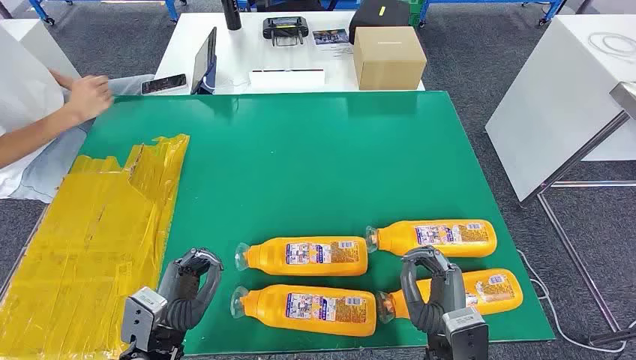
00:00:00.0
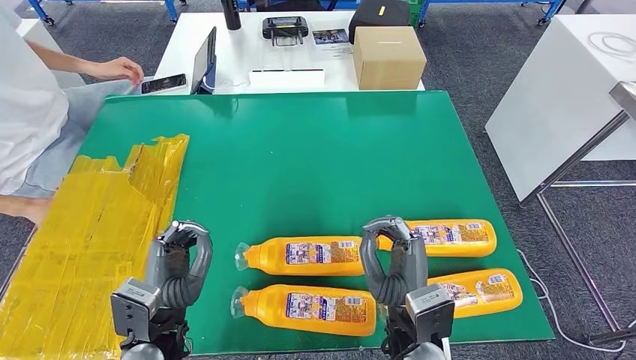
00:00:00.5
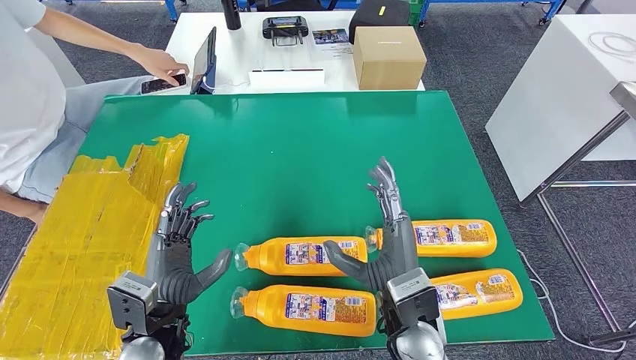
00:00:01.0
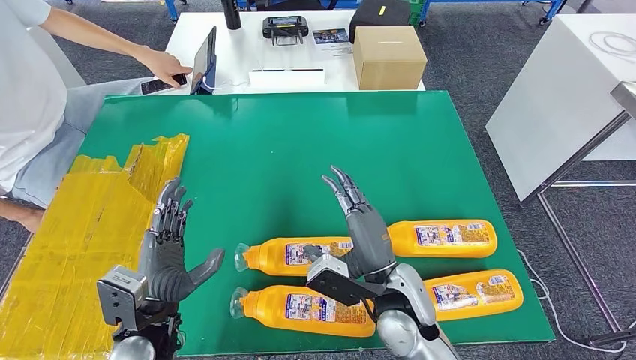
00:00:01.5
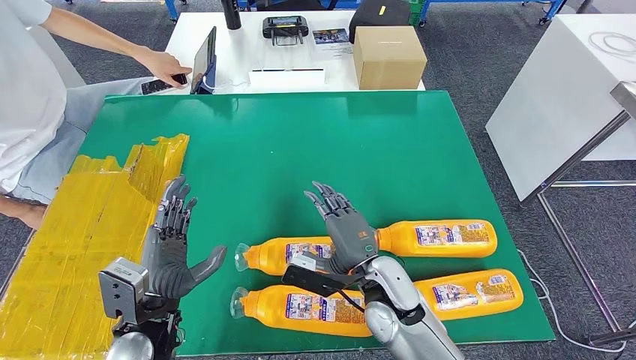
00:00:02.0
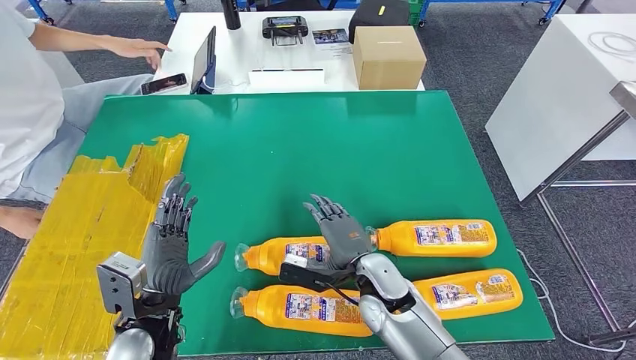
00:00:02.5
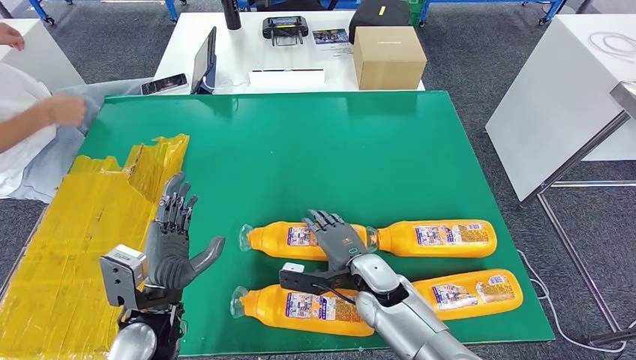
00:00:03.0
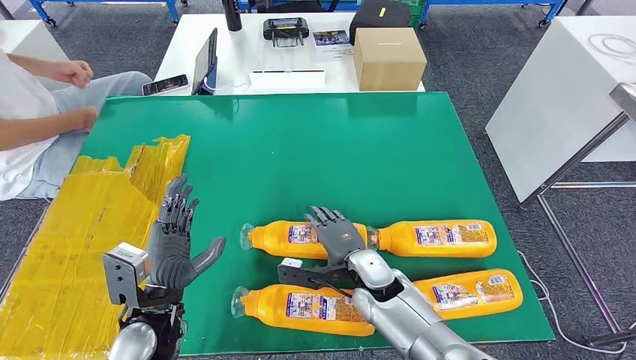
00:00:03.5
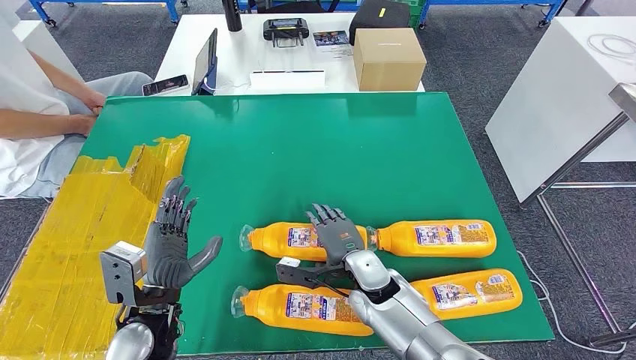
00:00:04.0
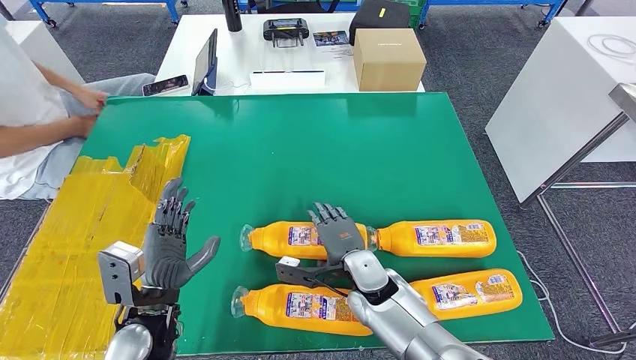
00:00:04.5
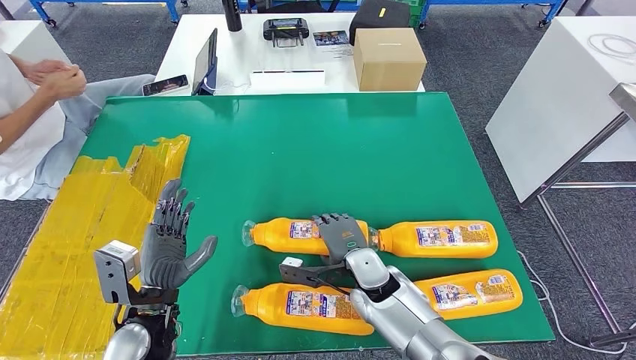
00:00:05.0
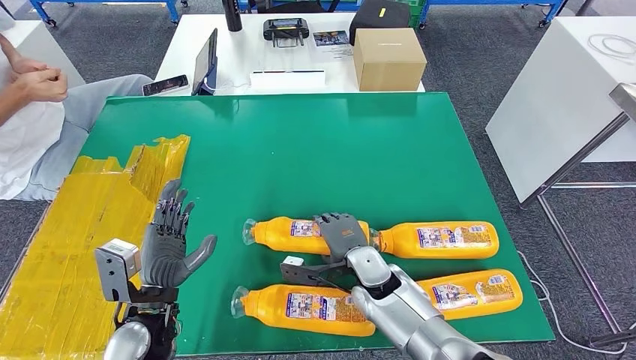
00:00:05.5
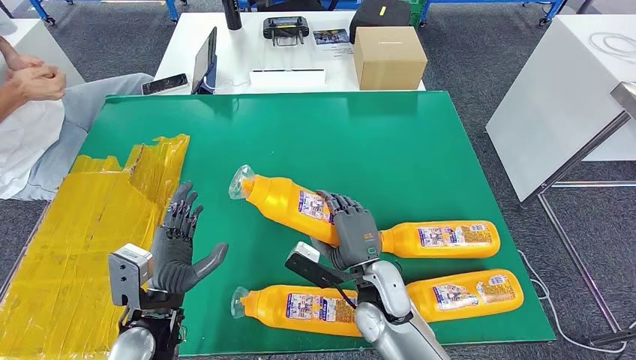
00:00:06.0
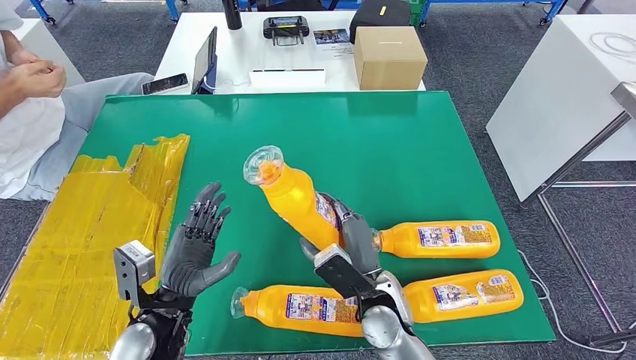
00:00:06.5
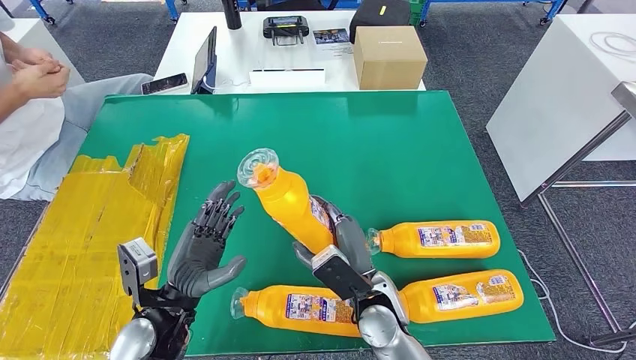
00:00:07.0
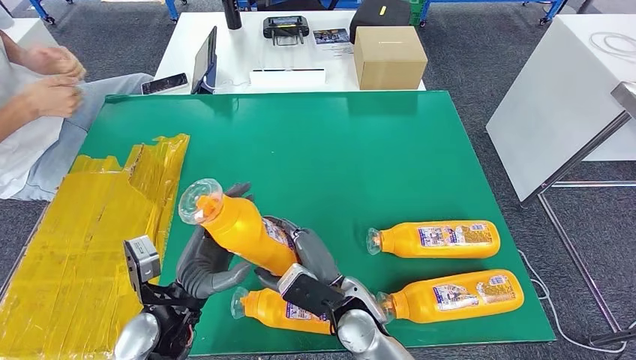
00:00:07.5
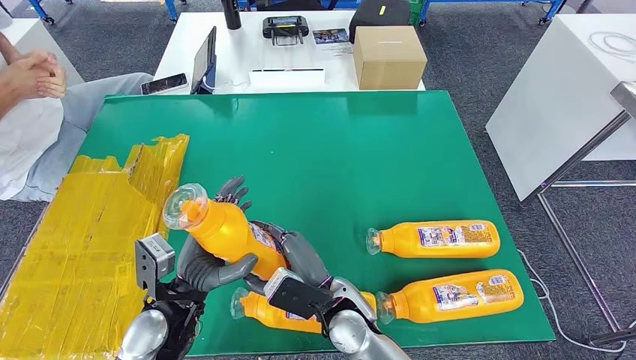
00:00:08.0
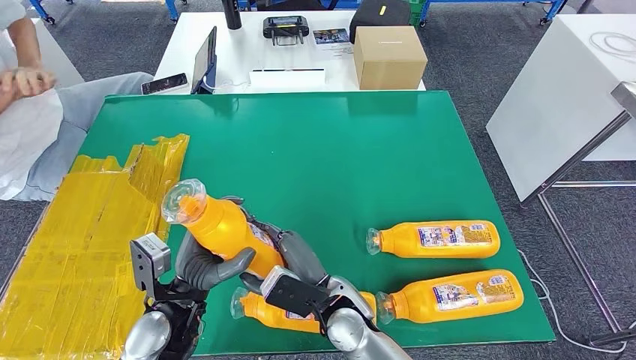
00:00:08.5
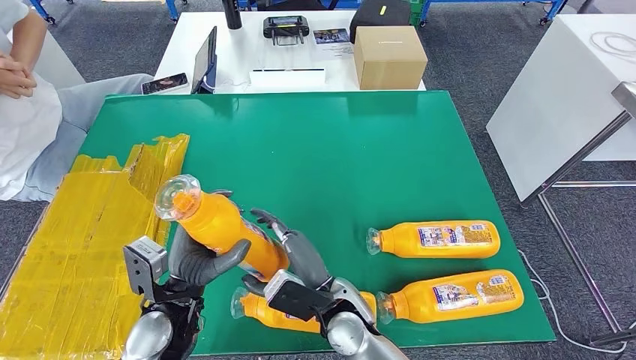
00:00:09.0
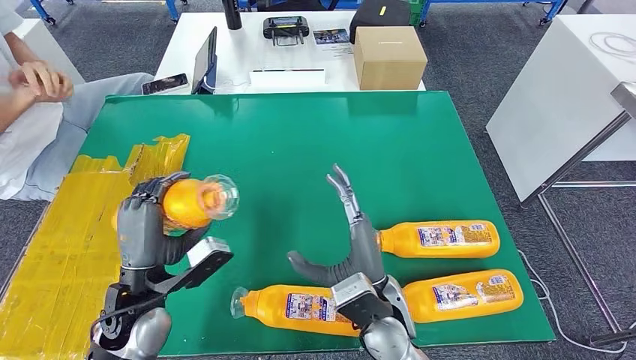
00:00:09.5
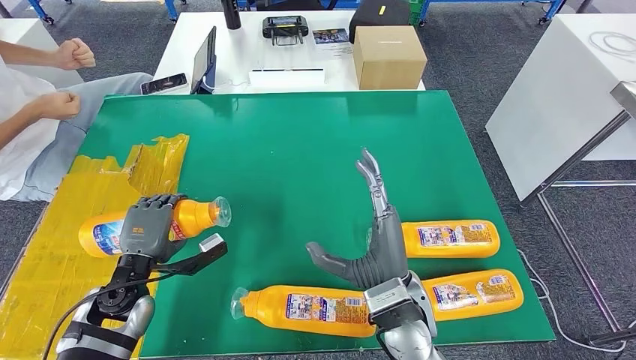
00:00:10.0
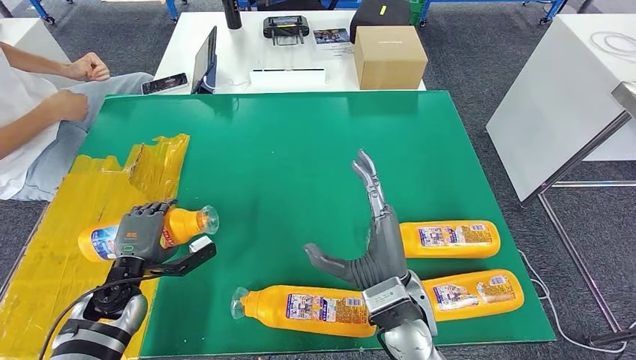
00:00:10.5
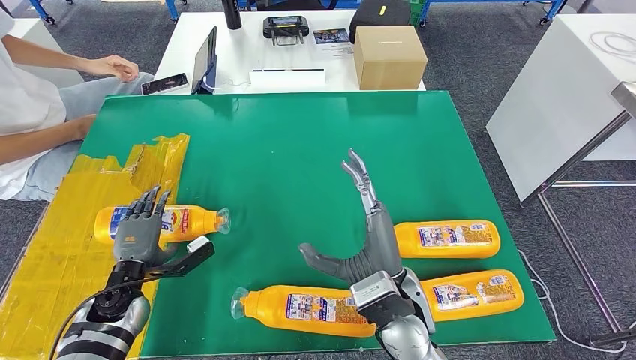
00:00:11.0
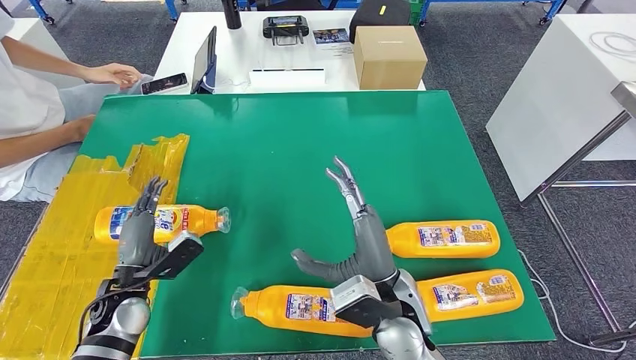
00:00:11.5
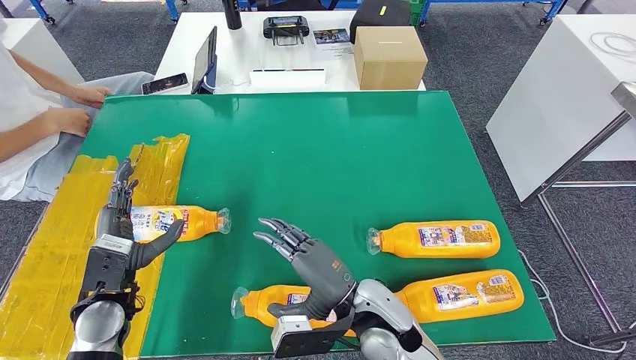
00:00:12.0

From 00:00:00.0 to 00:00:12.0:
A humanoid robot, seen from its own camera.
Step, from 00:00:00.0 to 00:00:07.5: Take the fast-moving consumer goods bottle from the table.
Step, from 00:00:08.5 to 00:00:11.0: Flip the fast-moving consumer goods bottle to the front side.
From 00:00:02.0 to 00:00:04.0: The right hand heads downward, covering approximately 5 cm.
From 00:00:04.0 to 00:00:06.0: The right hand changes place by approximately 5 cm.
From 00:00:06.0 to 00:00:08.0: The right hand moves to the left, approximately 5 cm.
From 00:00:08.0 to 00:00:10.0: The right hand is displaced to the right and upward by roughly 10 cm. Meanwhile the left hand goes roughly 10 cm to the left.

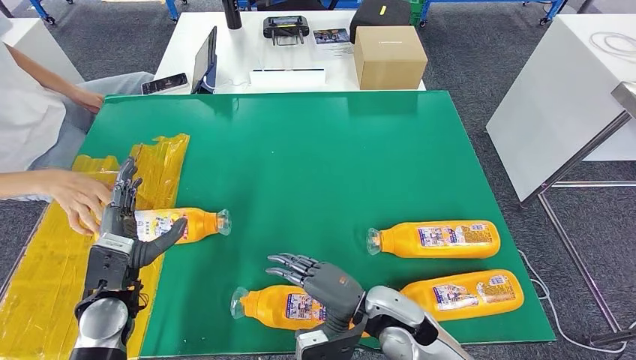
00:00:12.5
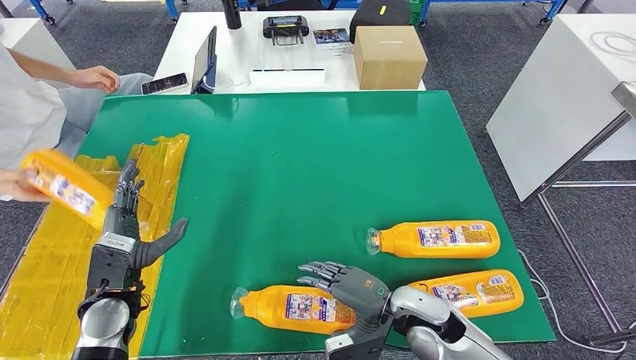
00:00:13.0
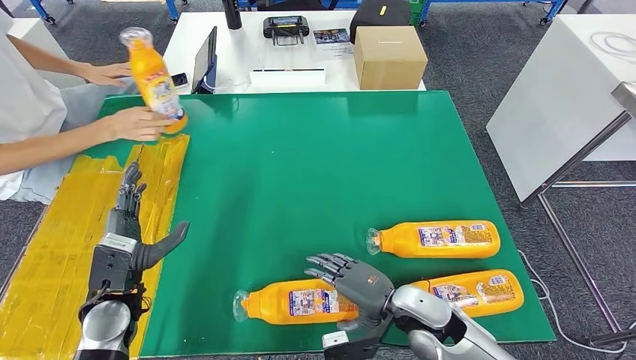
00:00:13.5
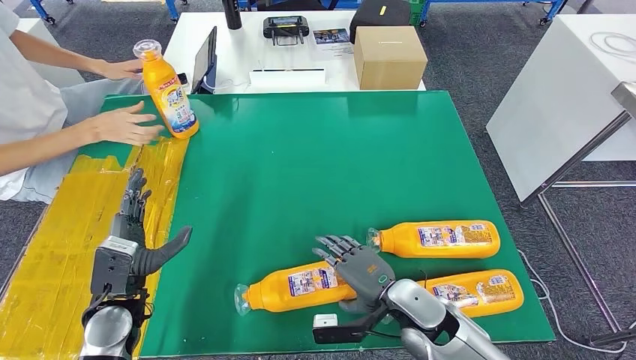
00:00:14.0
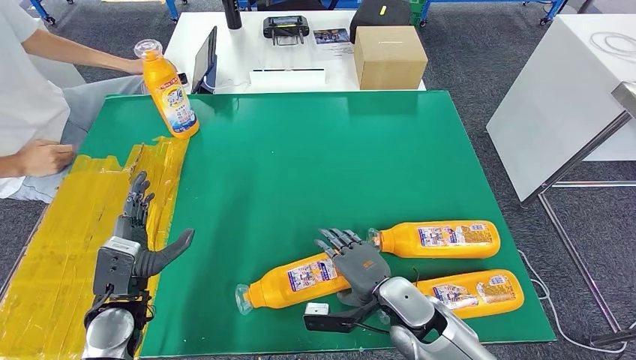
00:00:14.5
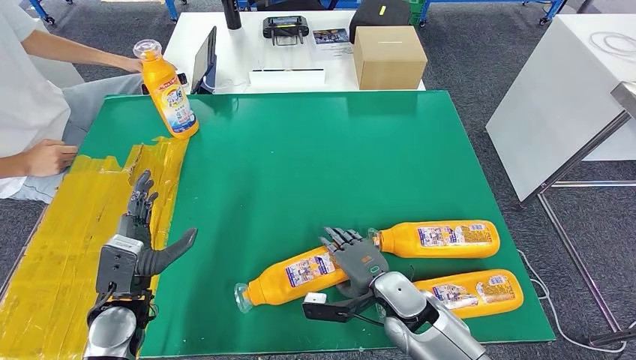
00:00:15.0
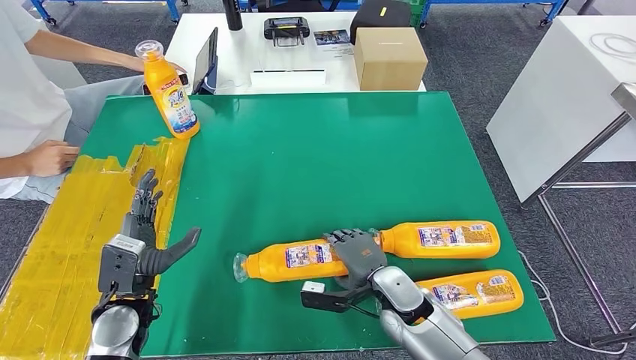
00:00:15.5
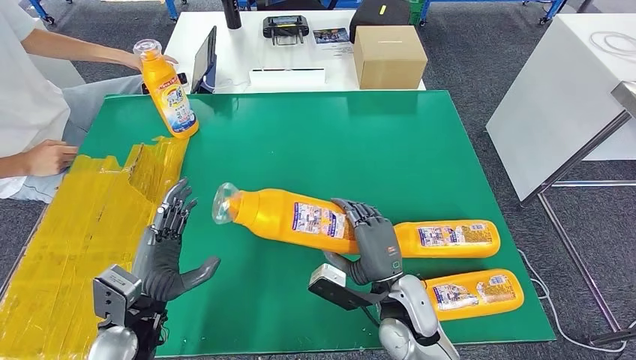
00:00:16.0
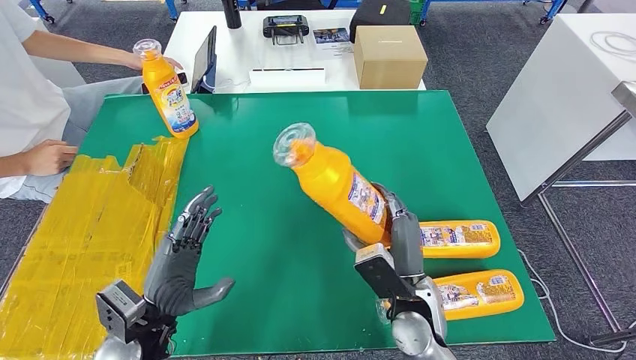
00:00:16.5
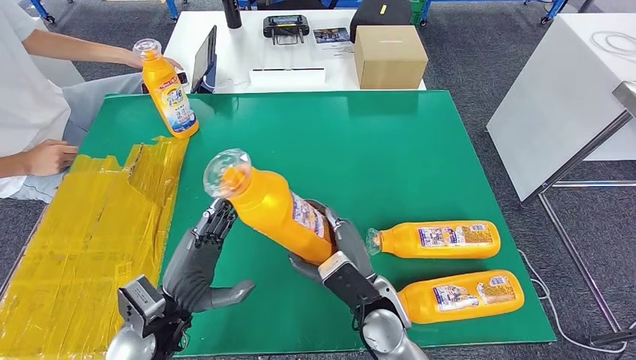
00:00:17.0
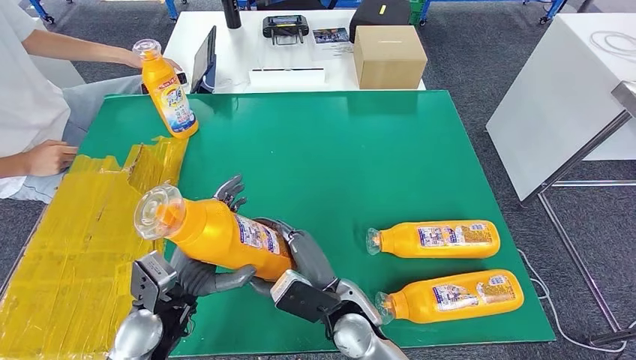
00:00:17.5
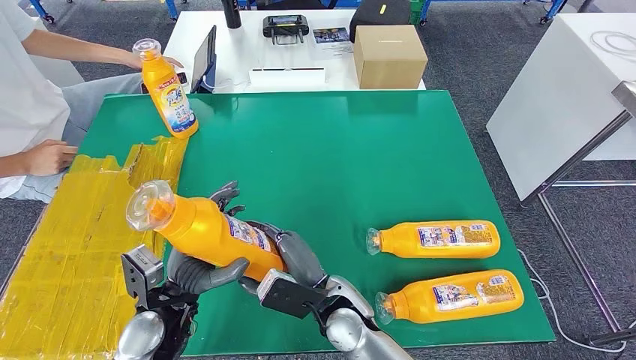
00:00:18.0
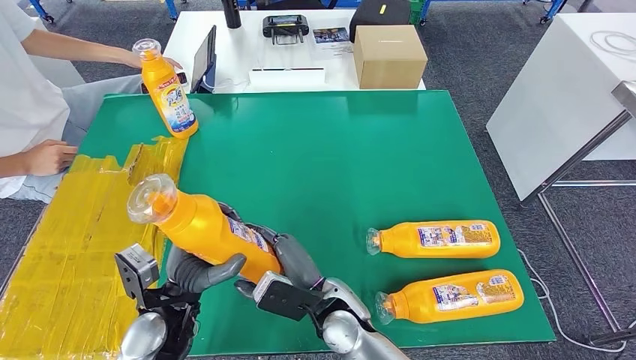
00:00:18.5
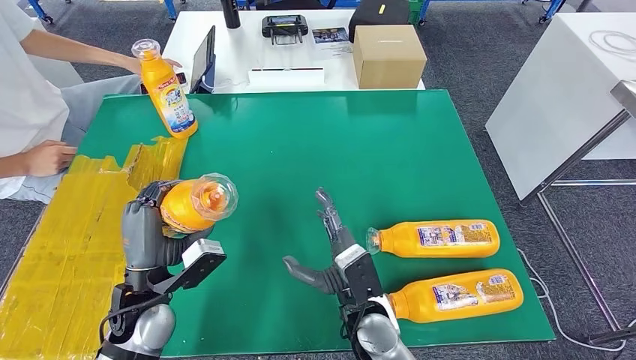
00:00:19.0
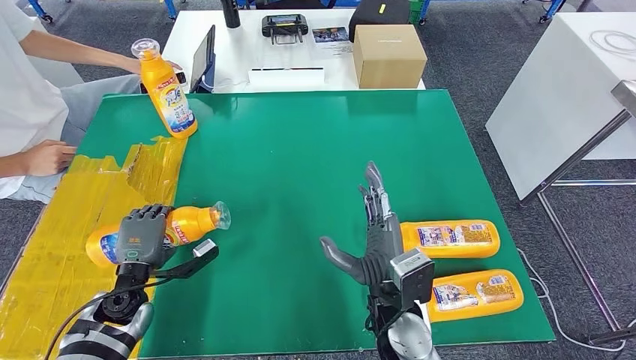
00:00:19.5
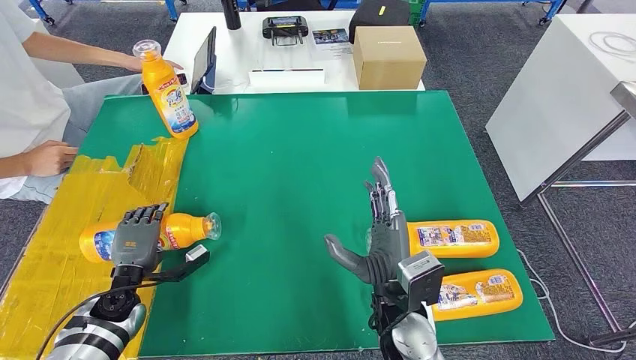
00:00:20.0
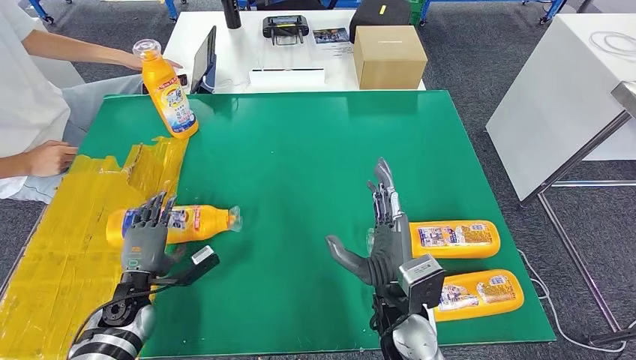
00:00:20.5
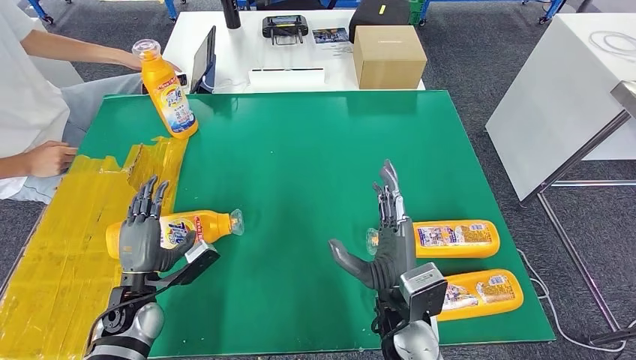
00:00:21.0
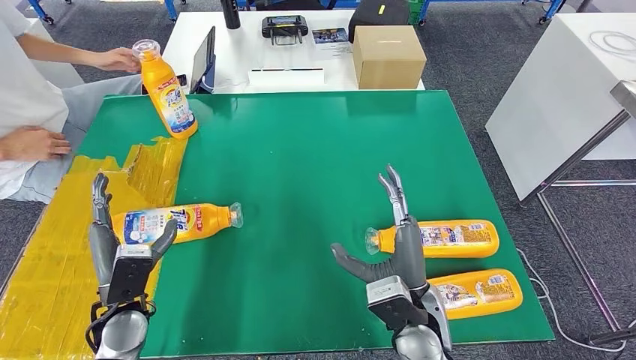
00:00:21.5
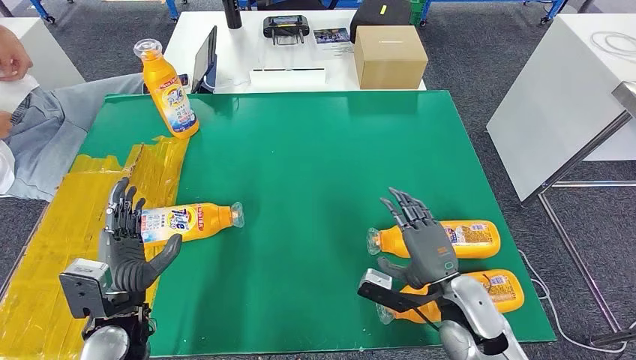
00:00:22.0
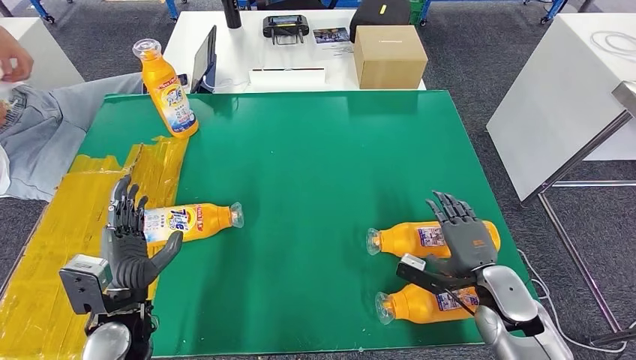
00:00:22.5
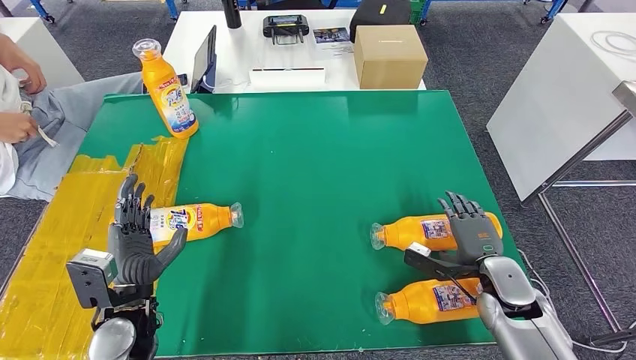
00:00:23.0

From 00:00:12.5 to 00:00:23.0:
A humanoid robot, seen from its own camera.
Step, from 00:00:12.5 to 00:00:17.0: Pick up the fast-moving consumer goods bottle from the table.
Step, from 00:00:18.0 to 00:00:21.0: Flip the fast-moving consumer goods bottle to the front side.
From 00:00:14.5 to 00:00:16.5: The left hand moves to the right, approximately 5 cm.
From 00:00:16.5 to 00:00:19.0: The right hand travels to the left by about 10 cm.
From 00:00:19.0 to 00:00:21.0: The right hand moves upward, approximately 5 cm, while the left hand heads downward and to the left, covering about 10 cm.
